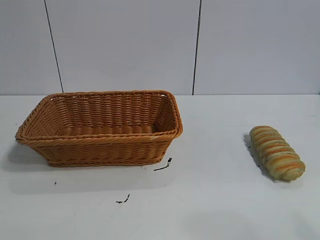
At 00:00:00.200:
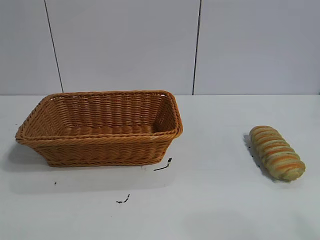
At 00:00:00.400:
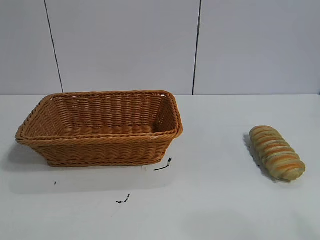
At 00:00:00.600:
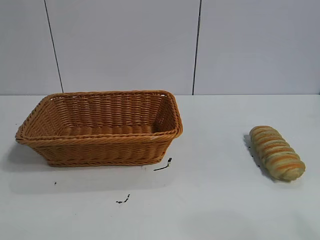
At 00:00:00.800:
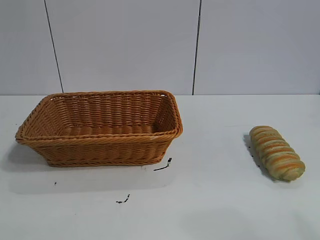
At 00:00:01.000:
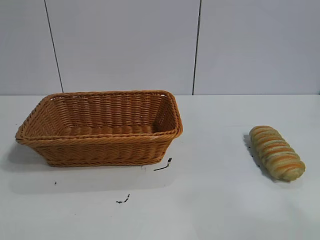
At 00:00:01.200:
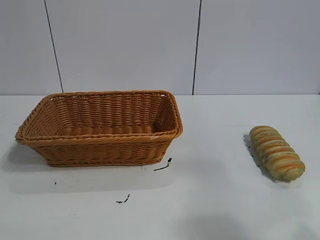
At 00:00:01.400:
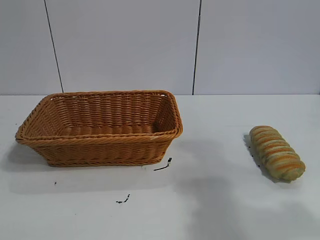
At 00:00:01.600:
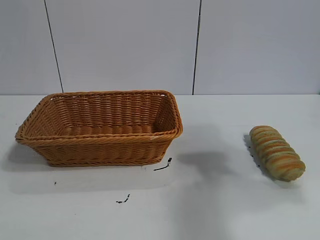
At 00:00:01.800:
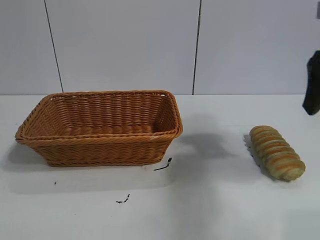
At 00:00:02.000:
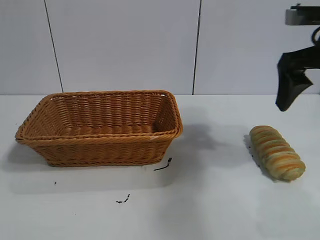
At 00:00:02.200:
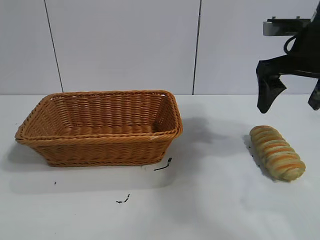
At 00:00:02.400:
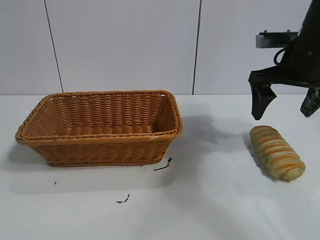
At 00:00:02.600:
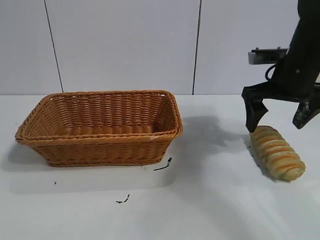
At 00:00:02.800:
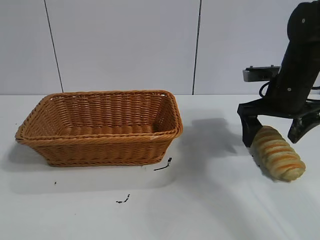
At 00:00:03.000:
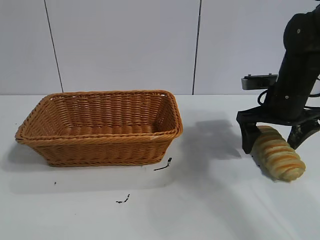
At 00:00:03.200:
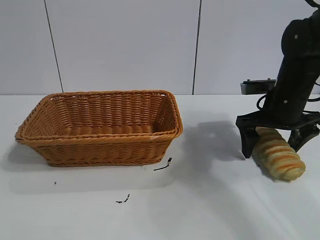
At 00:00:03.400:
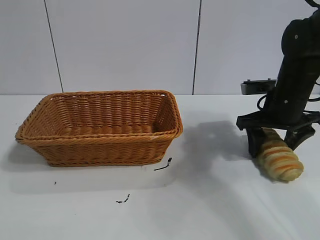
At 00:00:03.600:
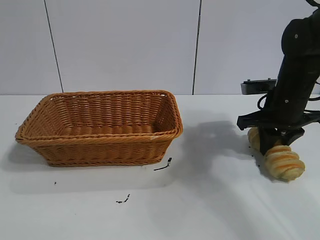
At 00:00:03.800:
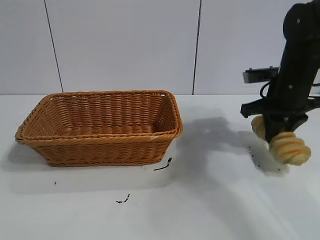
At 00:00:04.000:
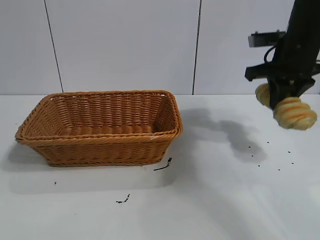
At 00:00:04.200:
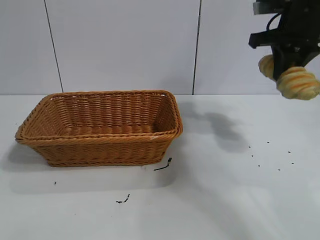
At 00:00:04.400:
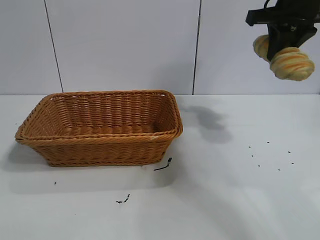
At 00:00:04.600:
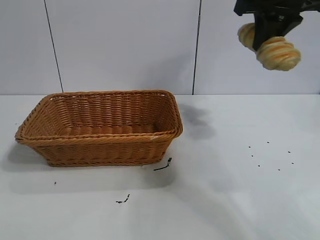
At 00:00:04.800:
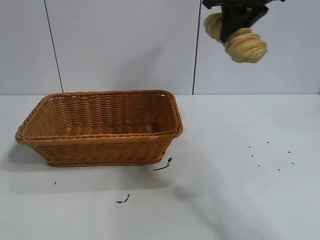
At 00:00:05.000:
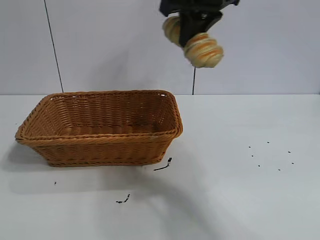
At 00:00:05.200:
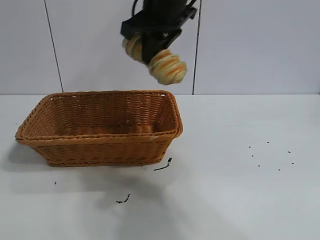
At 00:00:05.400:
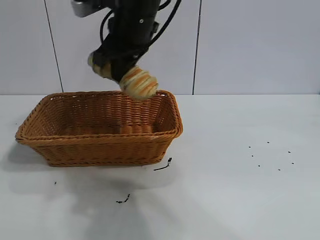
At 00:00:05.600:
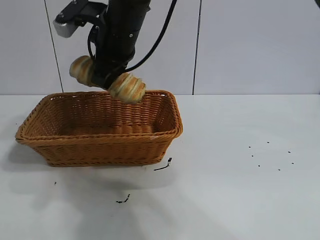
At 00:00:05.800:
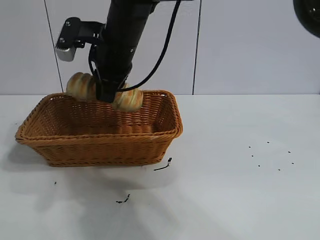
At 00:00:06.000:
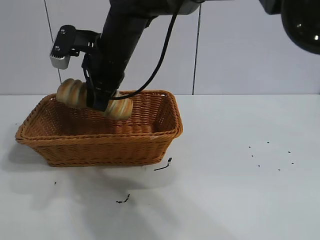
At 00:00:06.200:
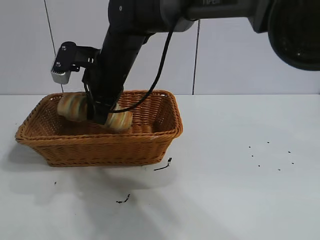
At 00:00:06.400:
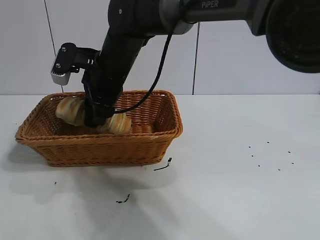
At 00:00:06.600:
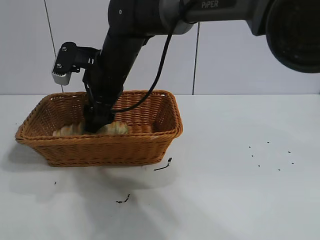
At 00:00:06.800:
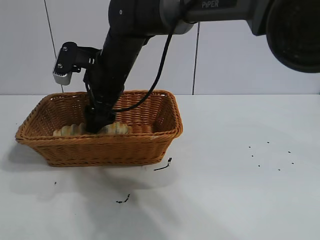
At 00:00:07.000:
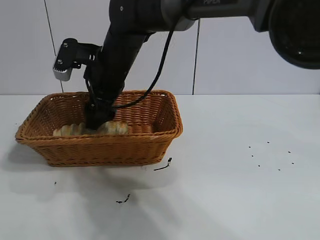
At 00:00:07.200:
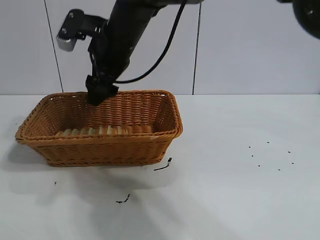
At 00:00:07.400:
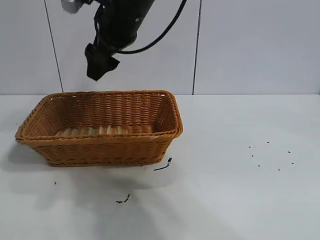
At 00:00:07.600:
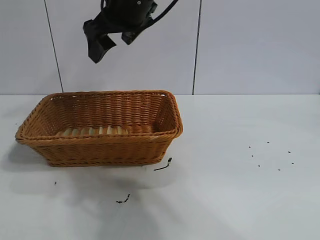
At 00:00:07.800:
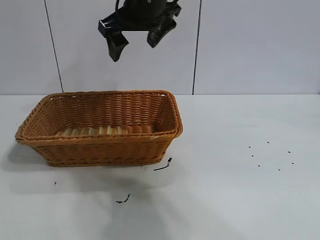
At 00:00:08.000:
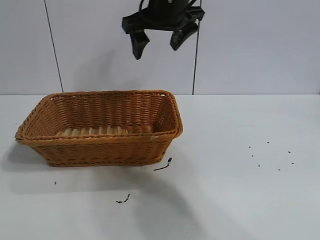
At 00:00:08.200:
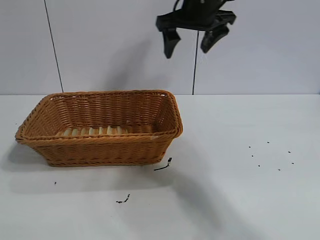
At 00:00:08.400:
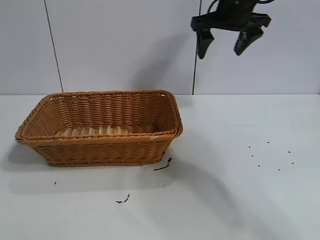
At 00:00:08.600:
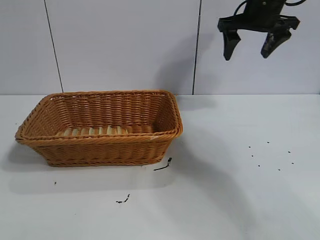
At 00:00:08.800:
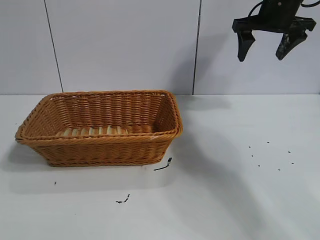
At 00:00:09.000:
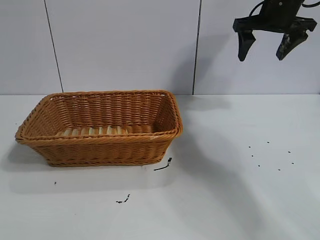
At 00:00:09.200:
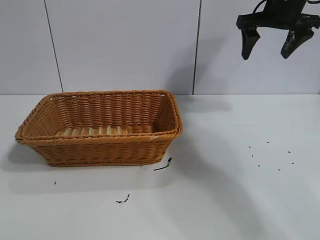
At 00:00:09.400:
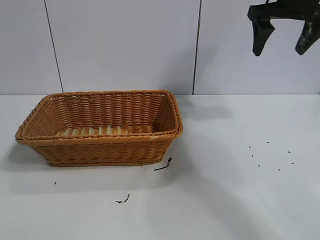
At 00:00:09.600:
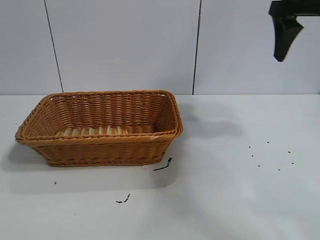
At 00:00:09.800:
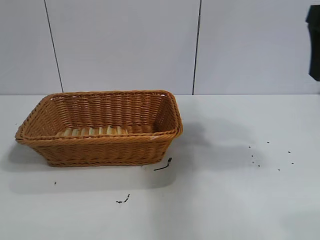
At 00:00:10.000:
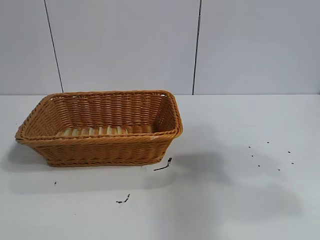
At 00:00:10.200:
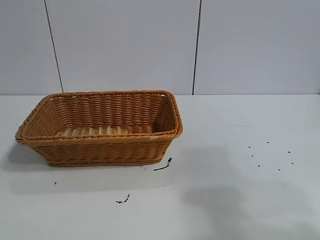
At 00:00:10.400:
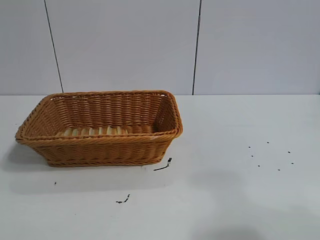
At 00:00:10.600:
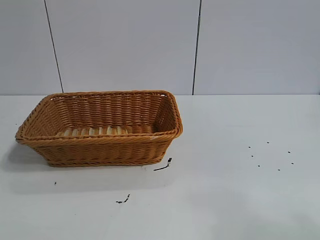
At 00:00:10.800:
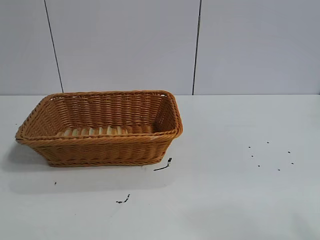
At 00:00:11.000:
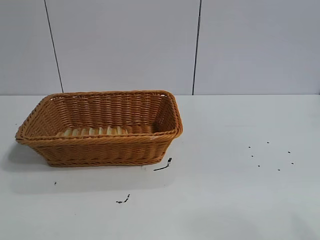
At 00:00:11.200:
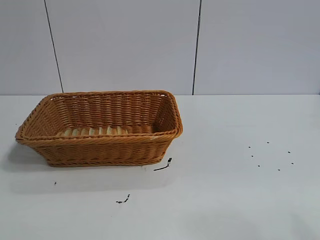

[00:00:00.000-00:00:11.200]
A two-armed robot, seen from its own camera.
Task of the whole recording: pick up the long bread and put it into the basket.
Step, 00:00:01.800 to 00:00:03.600: Grasp the long bread with right gripper.
Step, 00:00:03.800 to 00:00:07.200: Place the long bread in the basket with right gripper.
